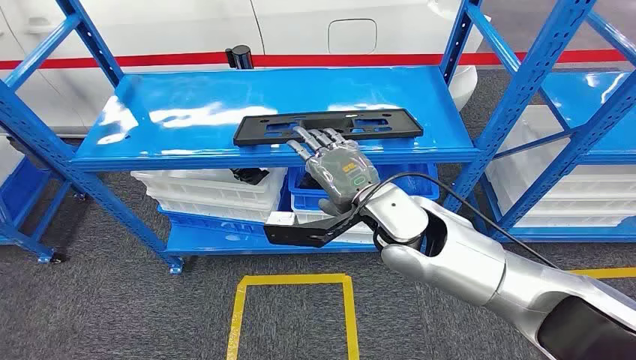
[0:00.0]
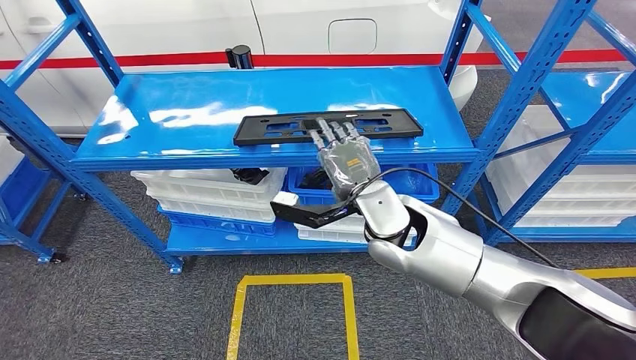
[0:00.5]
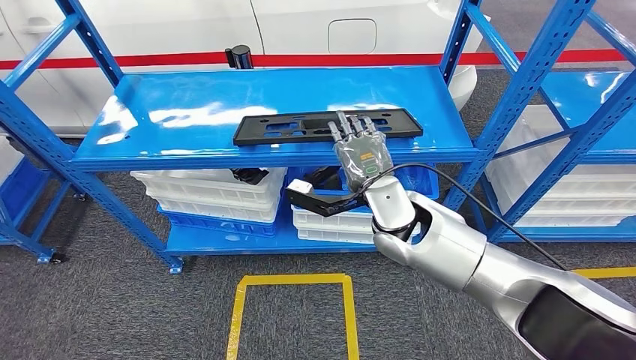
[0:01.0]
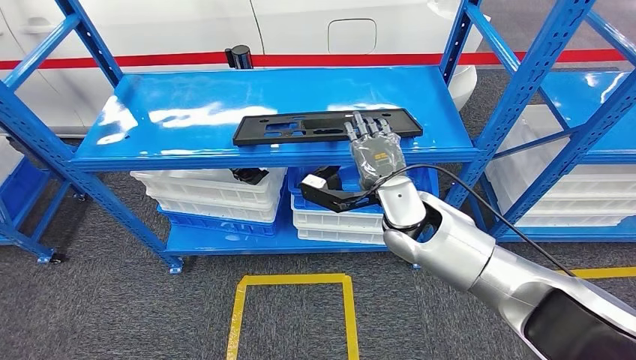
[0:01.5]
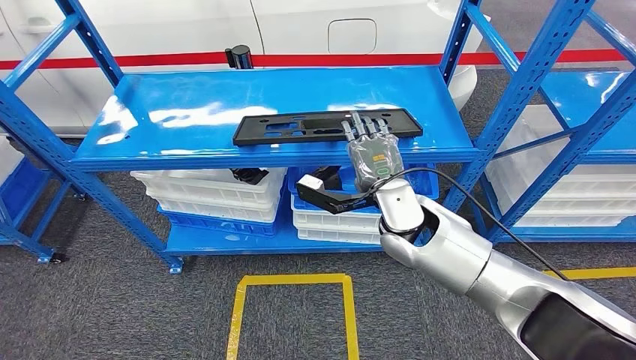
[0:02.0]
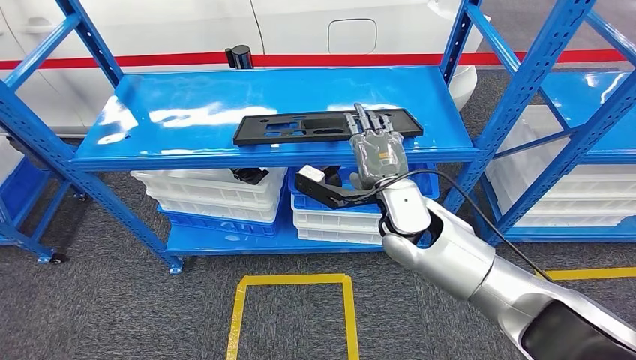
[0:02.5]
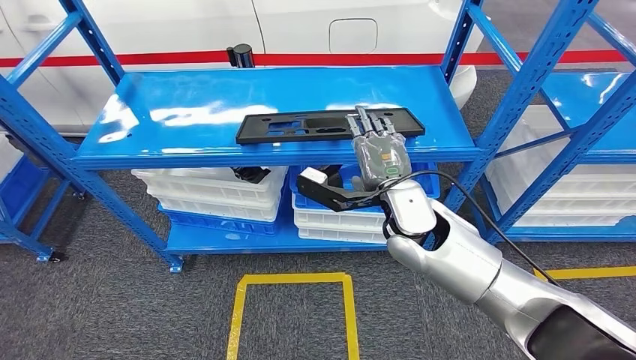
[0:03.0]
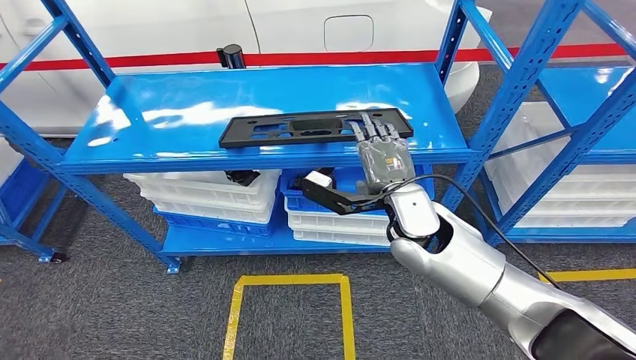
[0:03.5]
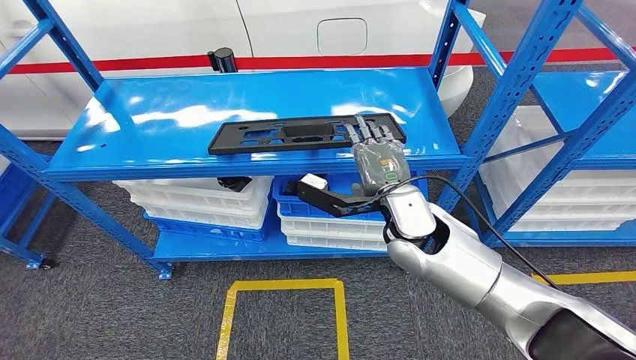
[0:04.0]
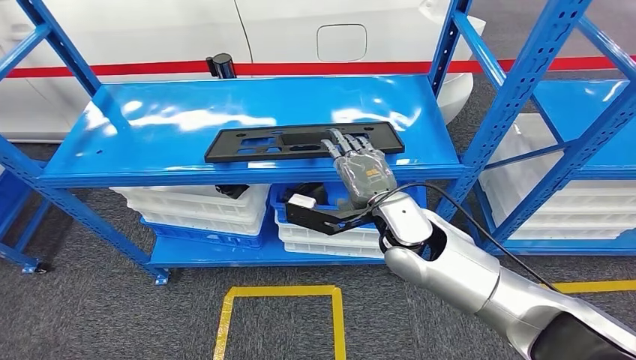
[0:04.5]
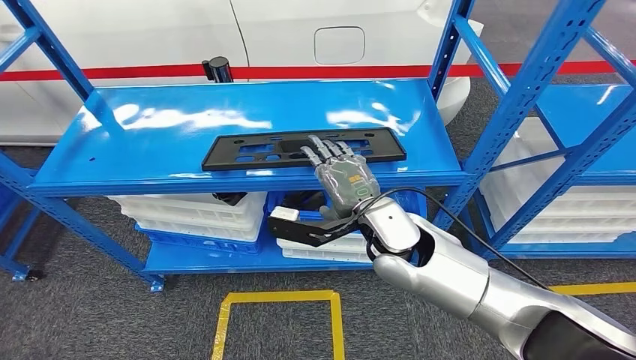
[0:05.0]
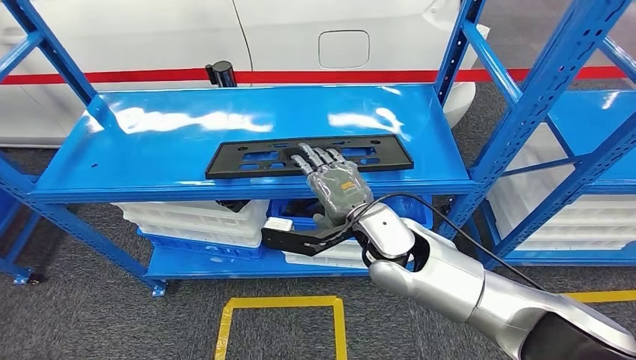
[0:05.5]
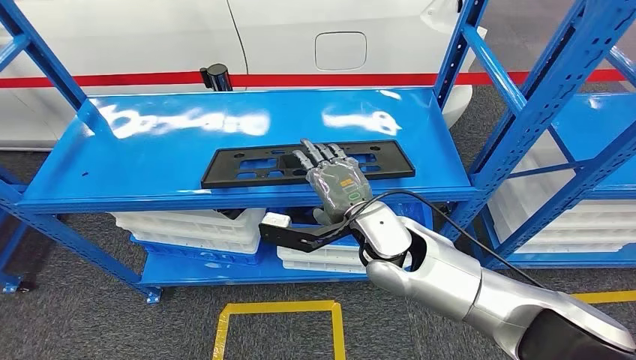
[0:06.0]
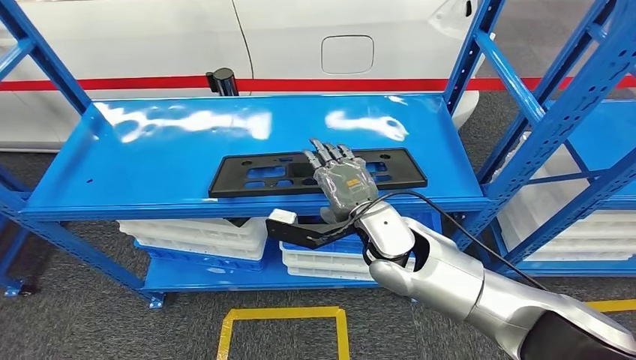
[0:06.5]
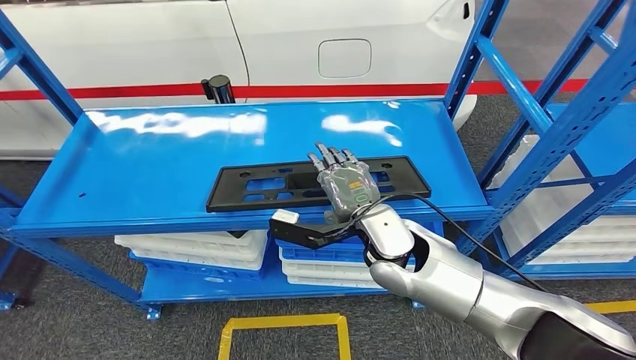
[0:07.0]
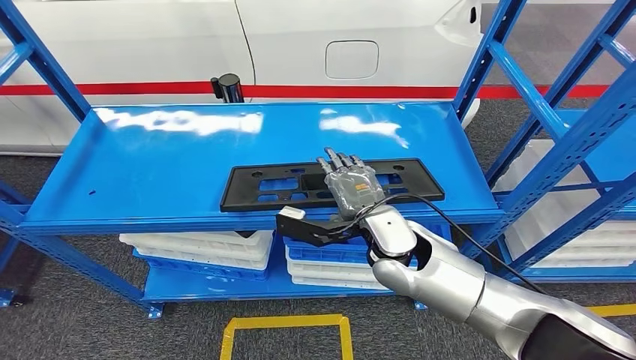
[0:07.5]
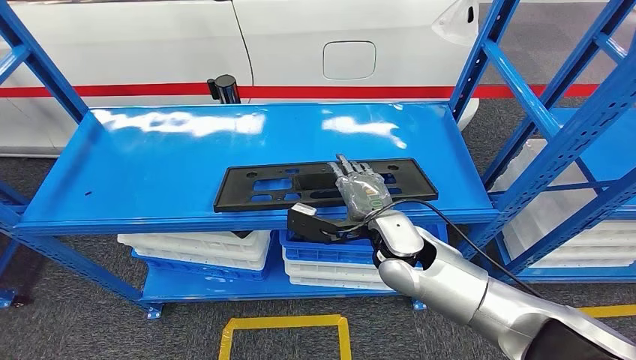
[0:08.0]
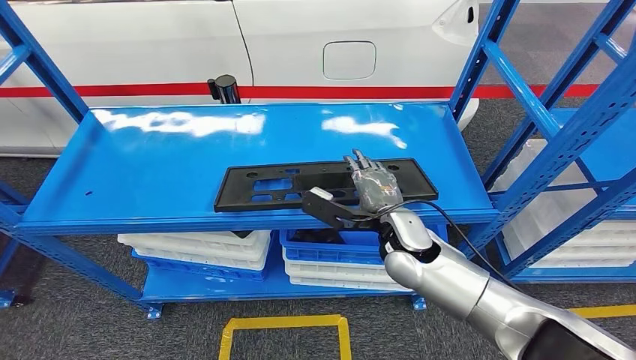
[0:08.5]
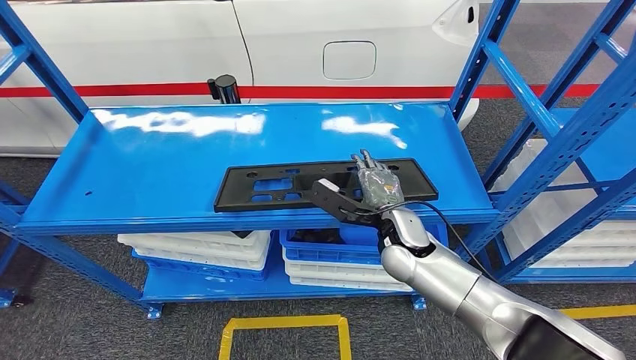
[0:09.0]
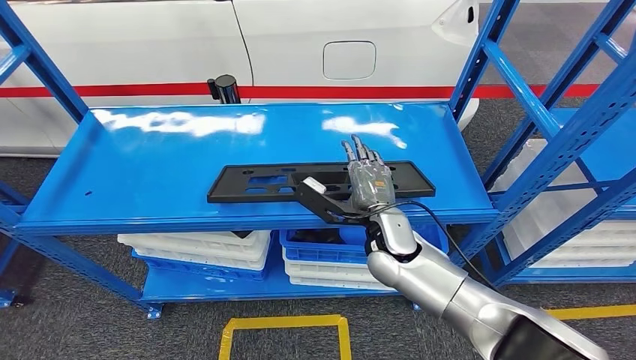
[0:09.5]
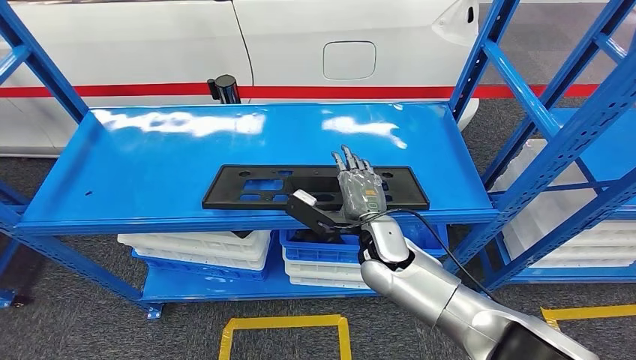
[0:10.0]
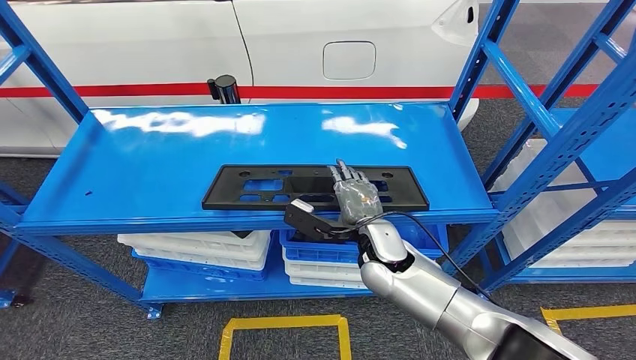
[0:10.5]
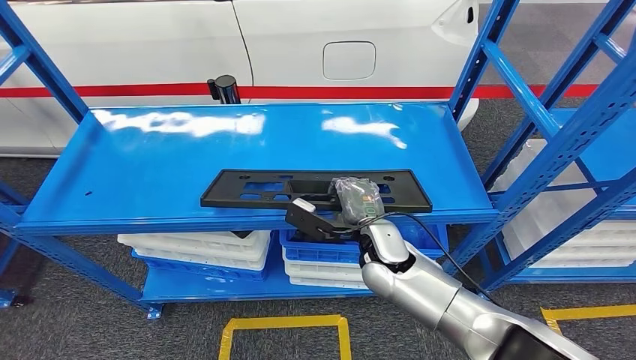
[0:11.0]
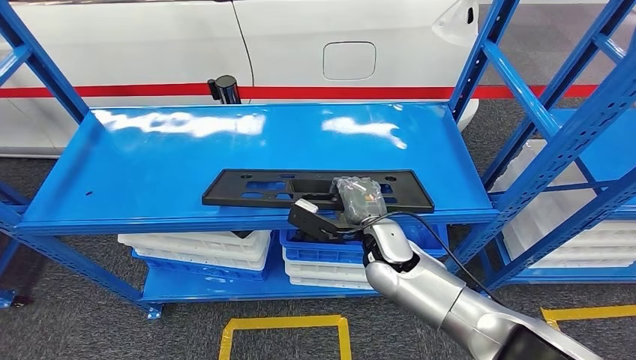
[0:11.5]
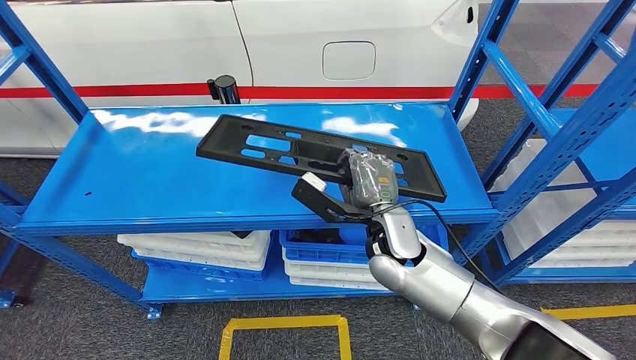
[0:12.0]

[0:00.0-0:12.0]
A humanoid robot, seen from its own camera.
0:08.0 to 0:10.0: The hands make only small movements.
0:10.0 to 0:12.0: The hands stay close to where they were, moving slightly.

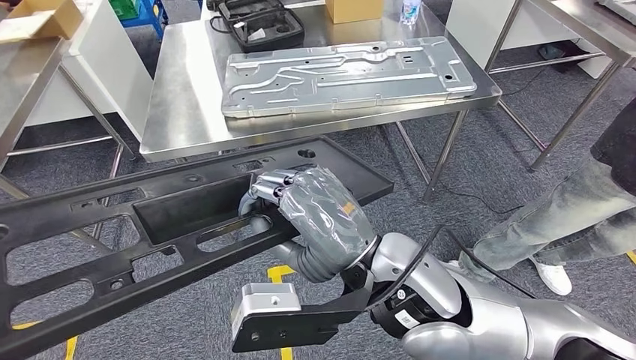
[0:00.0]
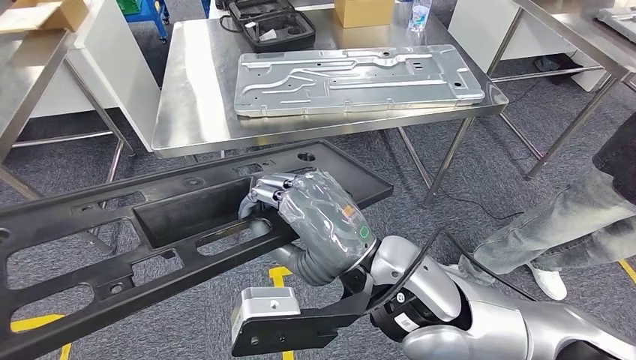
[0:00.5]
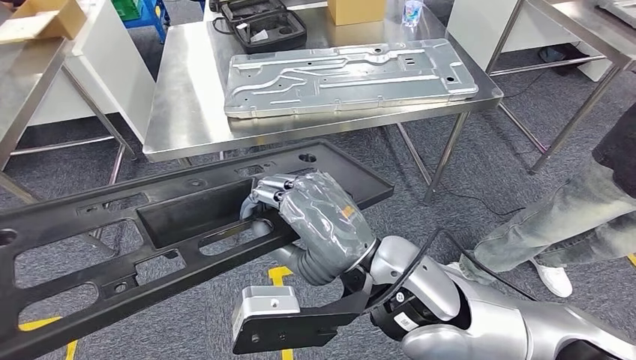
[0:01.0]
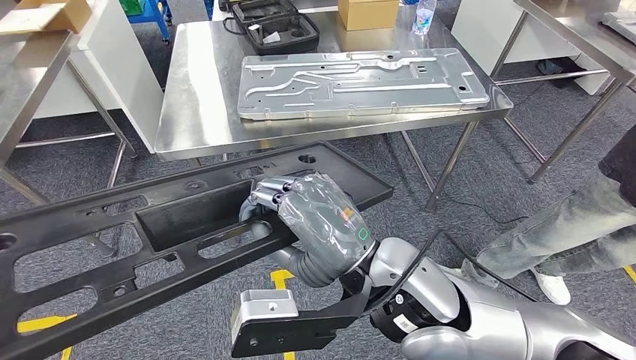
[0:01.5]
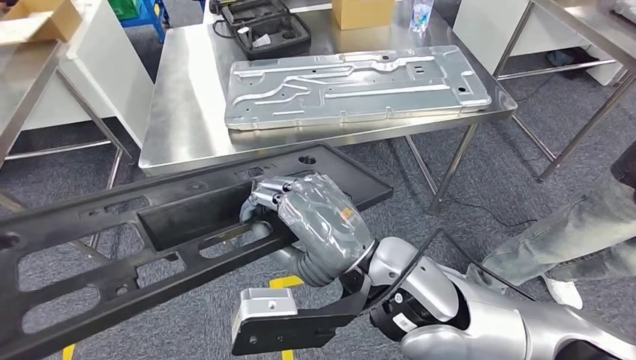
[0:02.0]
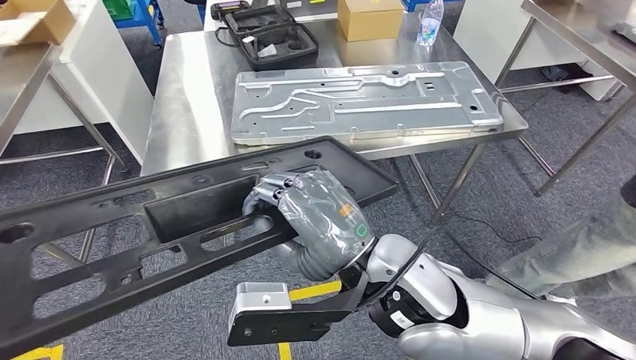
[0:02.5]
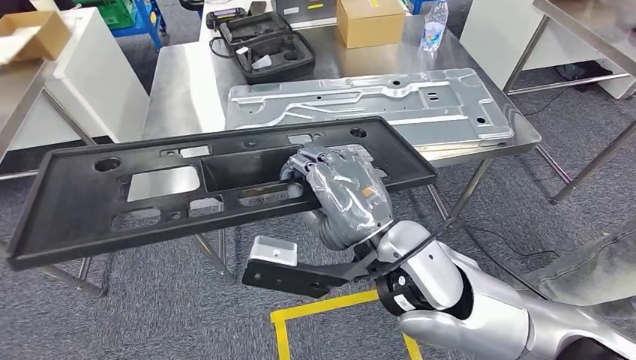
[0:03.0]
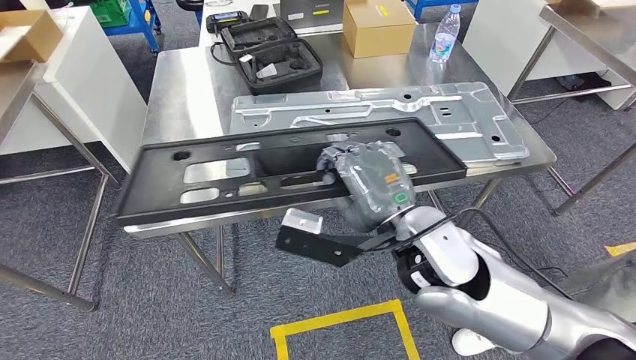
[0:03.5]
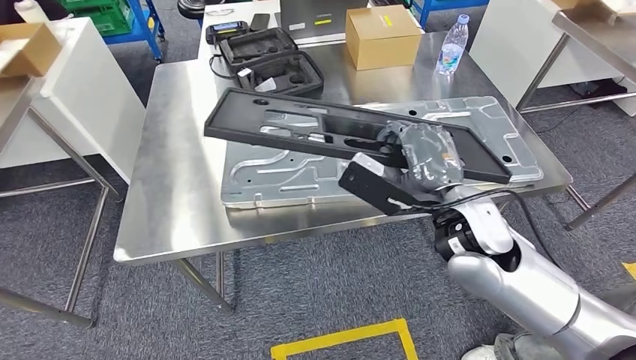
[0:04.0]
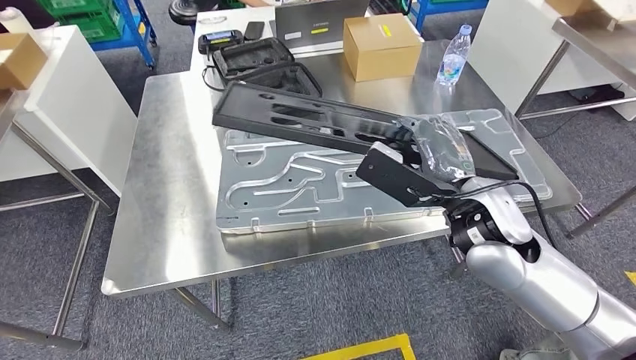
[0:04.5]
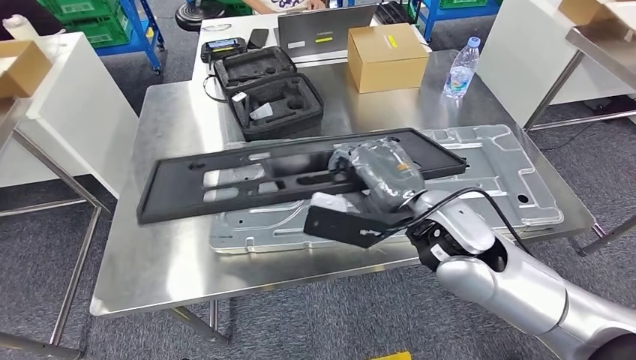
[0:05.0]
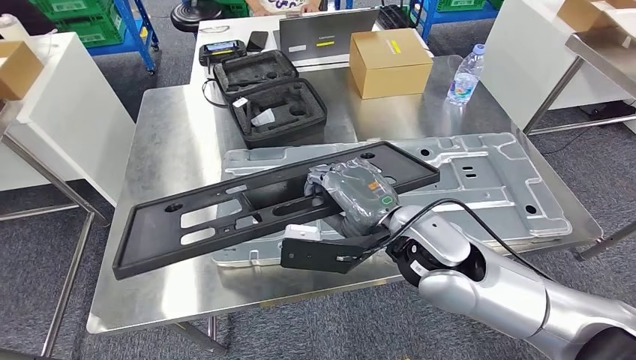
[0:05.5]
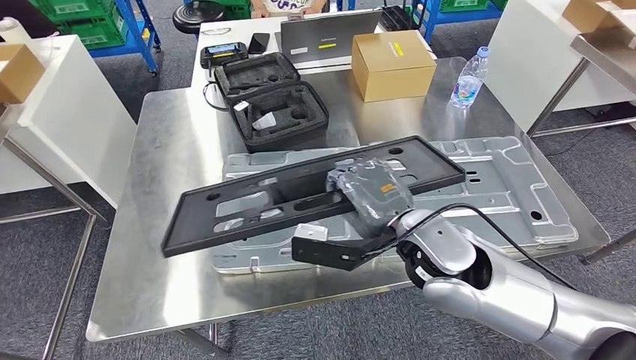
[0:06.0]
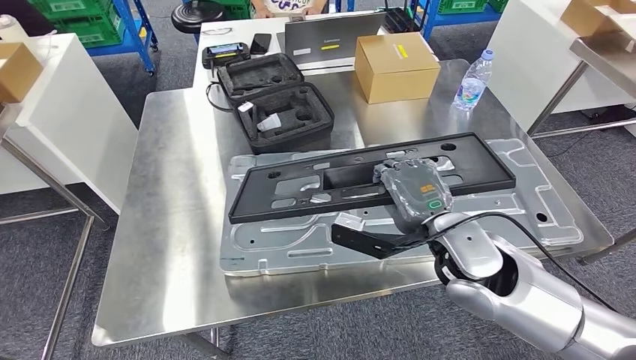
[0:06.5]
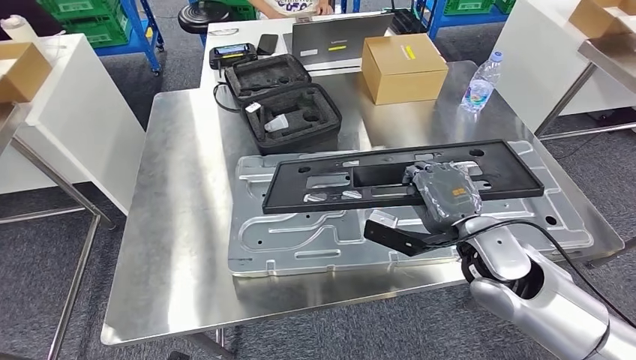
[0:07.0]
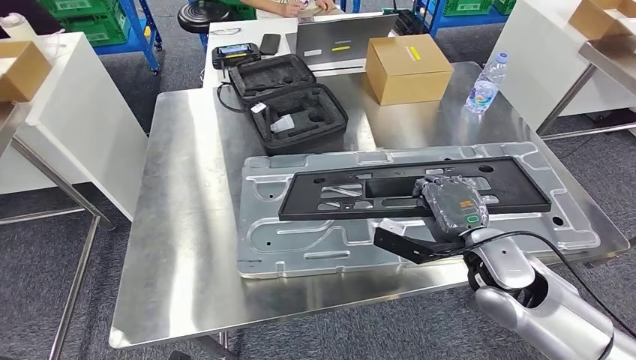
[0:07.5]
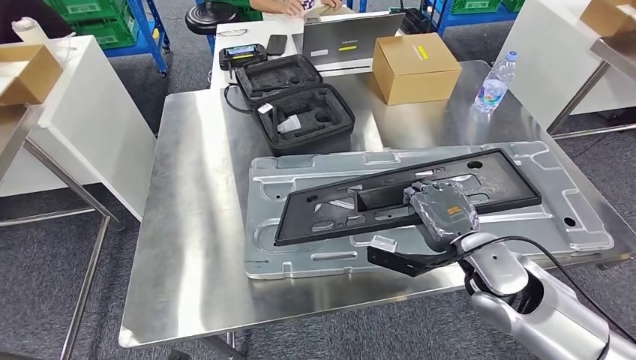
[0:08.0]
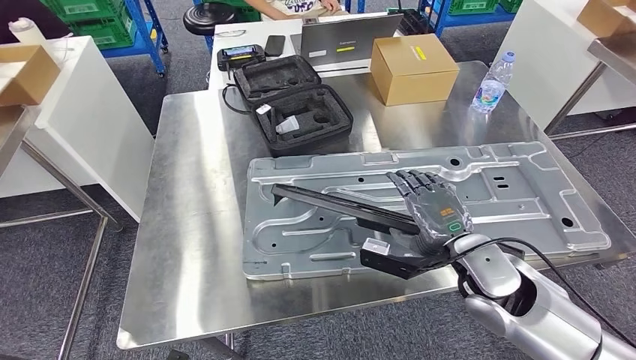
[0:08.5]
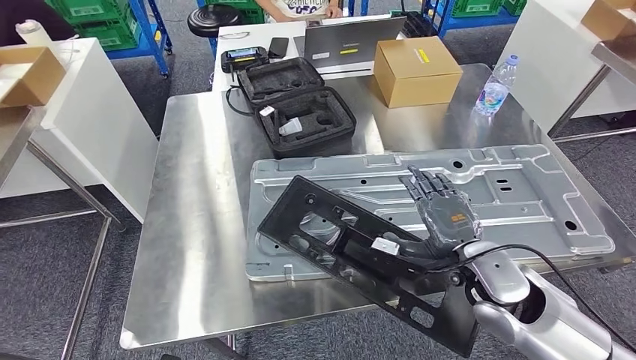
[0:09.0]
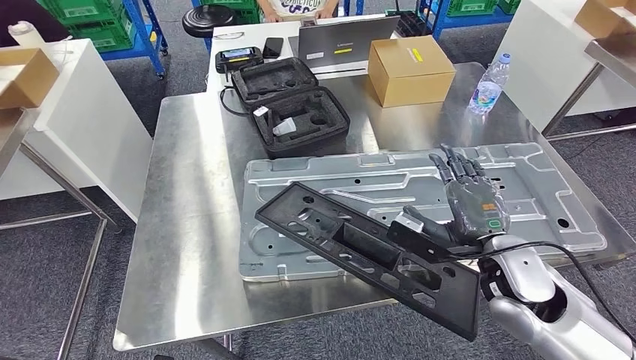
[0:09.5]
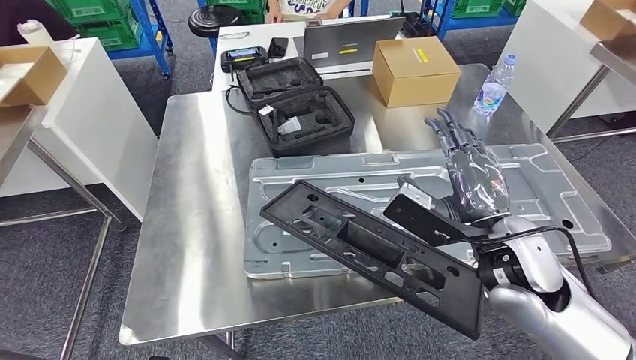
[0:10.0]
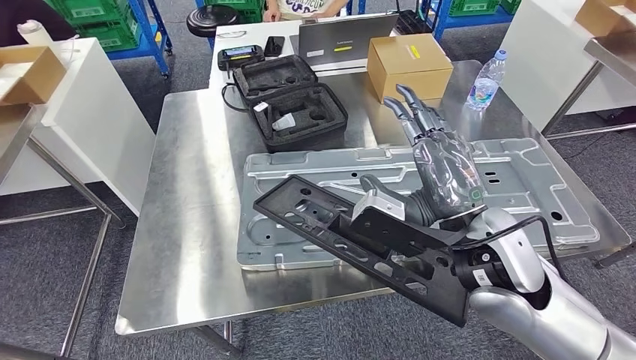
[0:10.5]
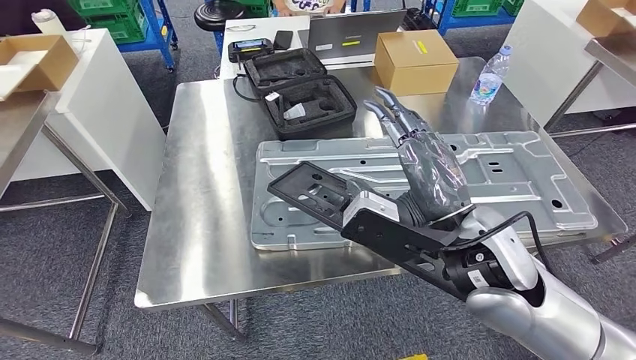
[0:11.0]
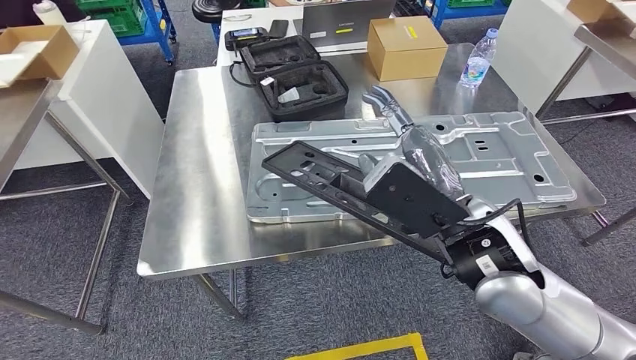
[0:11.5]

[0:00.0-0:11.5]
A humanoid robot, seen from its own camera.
Step, 0:00.0 to 0:02.0: Move the large material to the front of the workbench.
